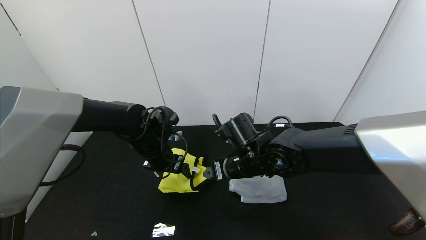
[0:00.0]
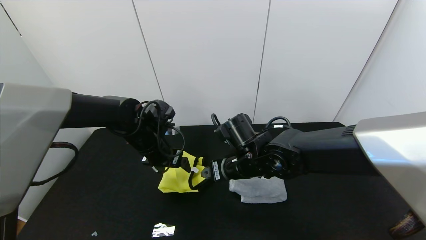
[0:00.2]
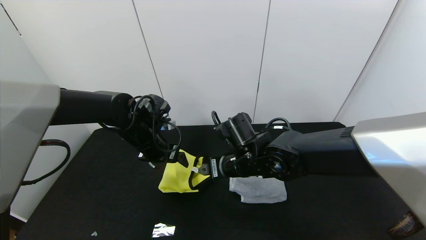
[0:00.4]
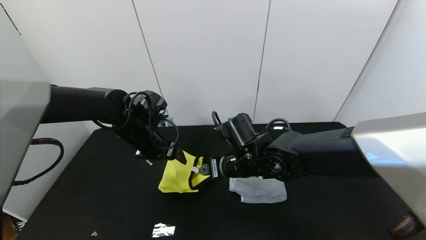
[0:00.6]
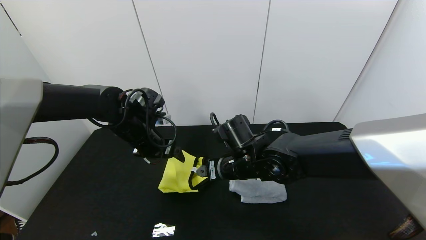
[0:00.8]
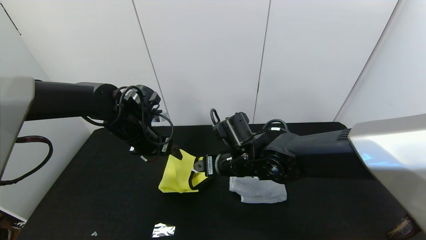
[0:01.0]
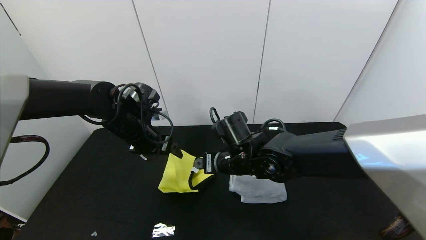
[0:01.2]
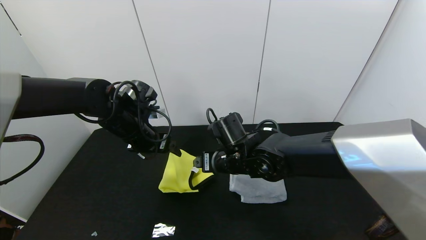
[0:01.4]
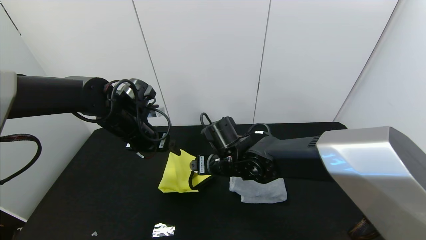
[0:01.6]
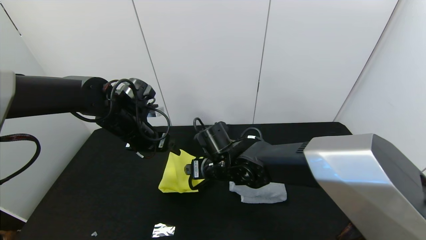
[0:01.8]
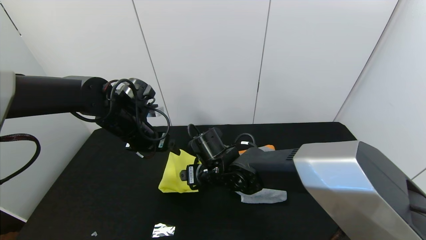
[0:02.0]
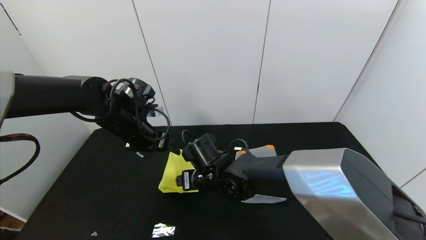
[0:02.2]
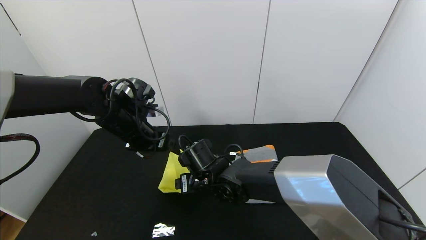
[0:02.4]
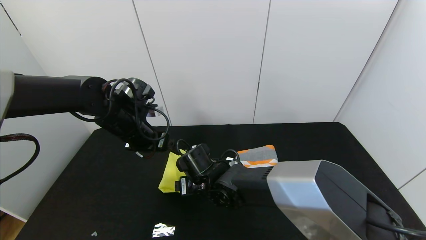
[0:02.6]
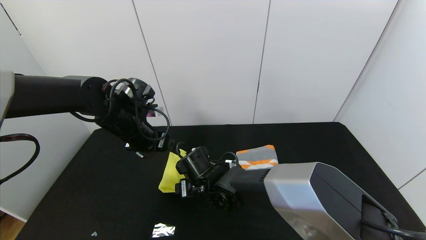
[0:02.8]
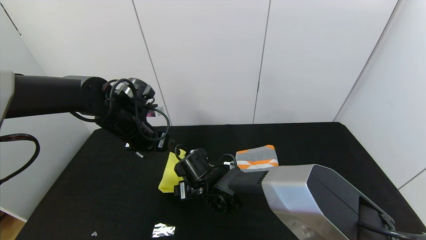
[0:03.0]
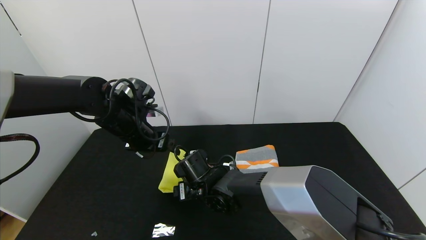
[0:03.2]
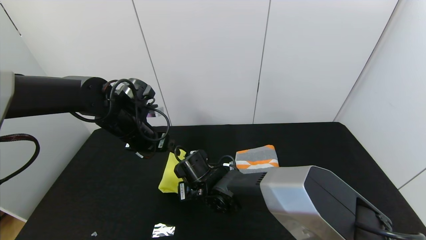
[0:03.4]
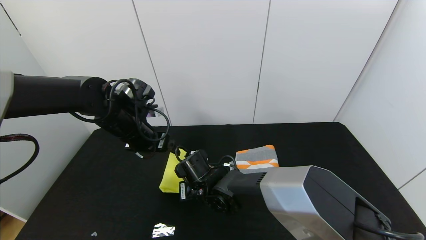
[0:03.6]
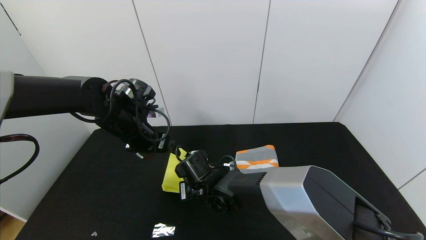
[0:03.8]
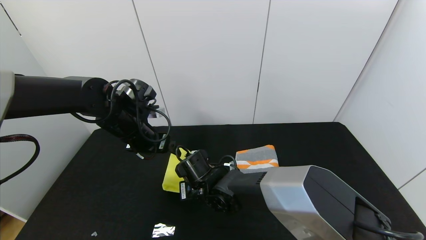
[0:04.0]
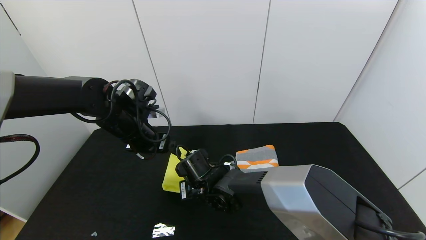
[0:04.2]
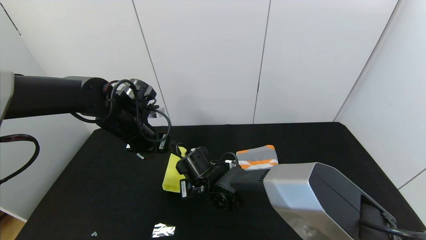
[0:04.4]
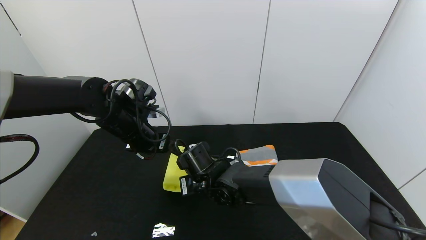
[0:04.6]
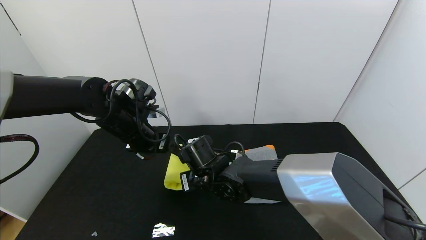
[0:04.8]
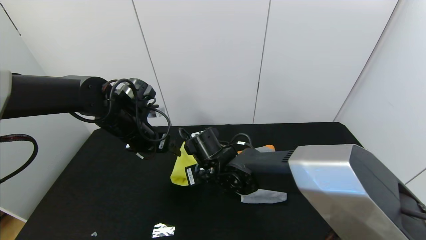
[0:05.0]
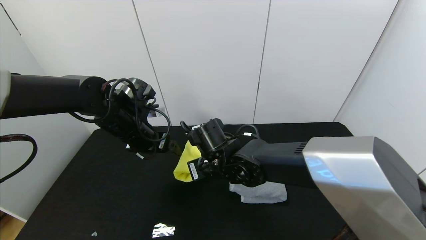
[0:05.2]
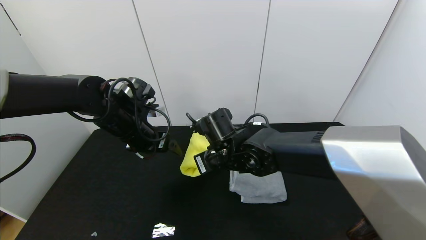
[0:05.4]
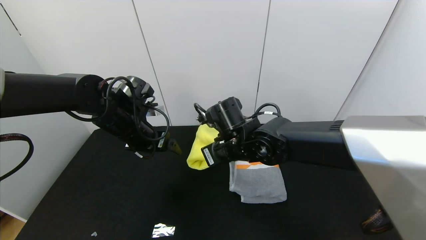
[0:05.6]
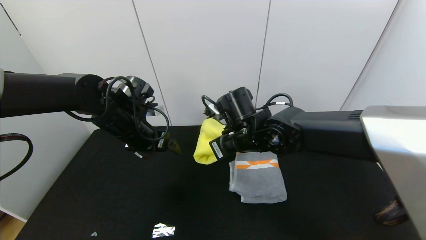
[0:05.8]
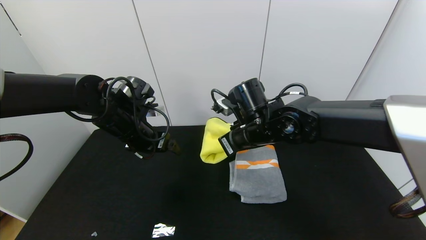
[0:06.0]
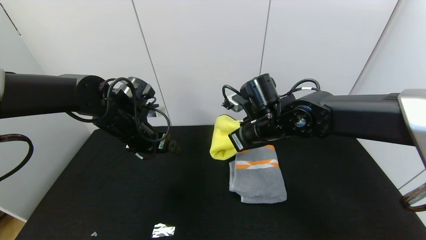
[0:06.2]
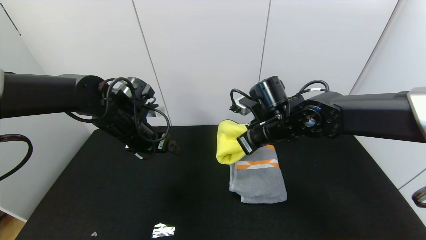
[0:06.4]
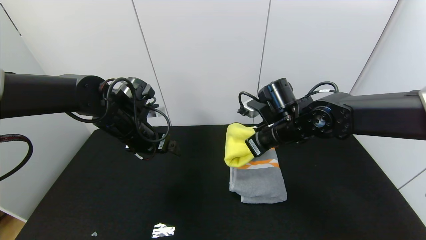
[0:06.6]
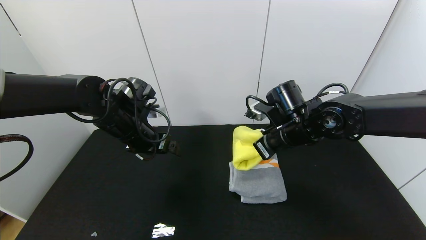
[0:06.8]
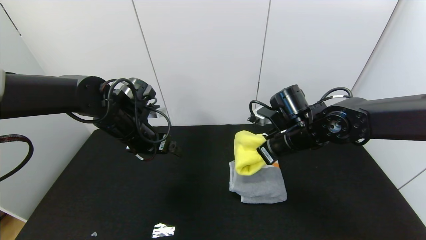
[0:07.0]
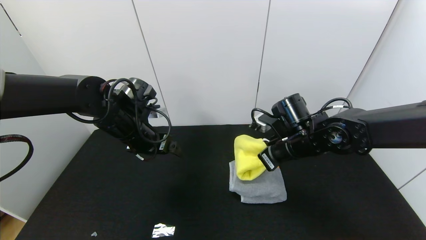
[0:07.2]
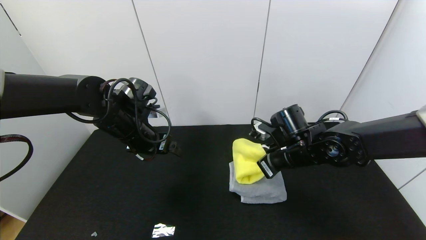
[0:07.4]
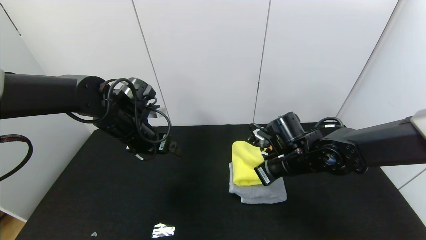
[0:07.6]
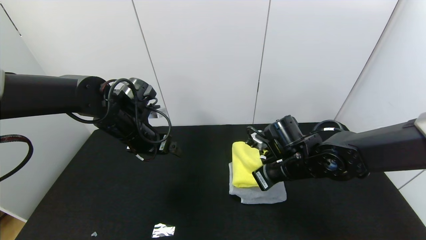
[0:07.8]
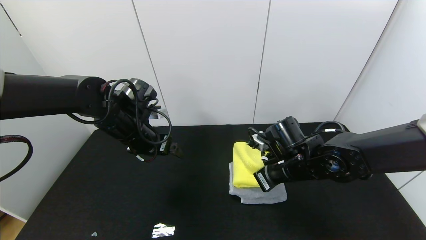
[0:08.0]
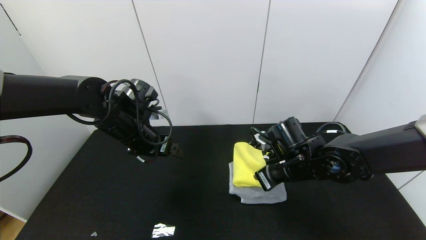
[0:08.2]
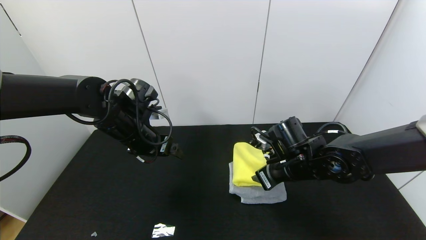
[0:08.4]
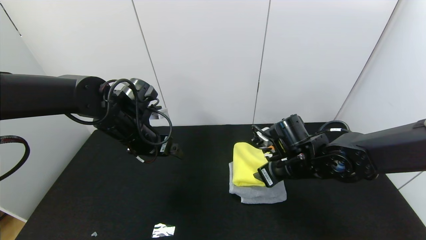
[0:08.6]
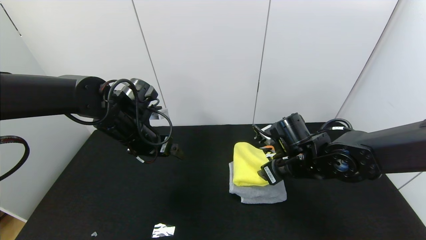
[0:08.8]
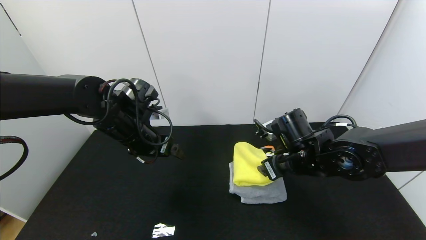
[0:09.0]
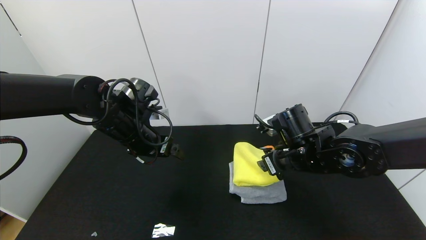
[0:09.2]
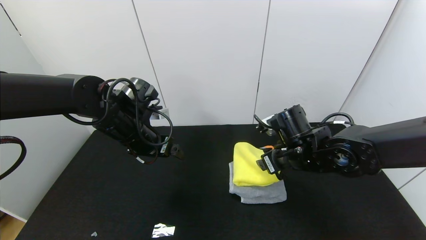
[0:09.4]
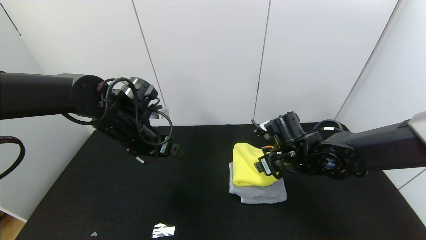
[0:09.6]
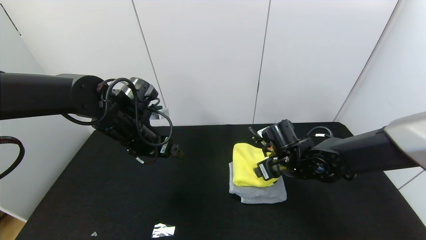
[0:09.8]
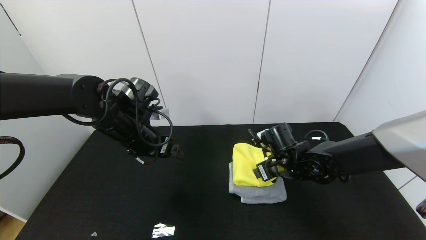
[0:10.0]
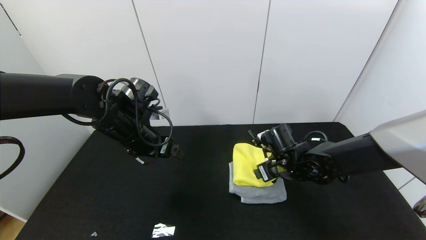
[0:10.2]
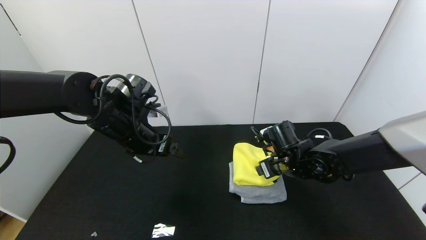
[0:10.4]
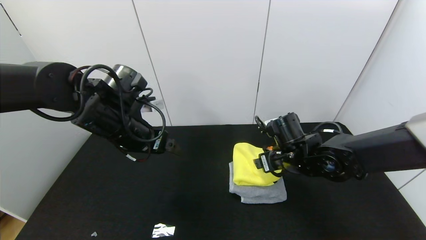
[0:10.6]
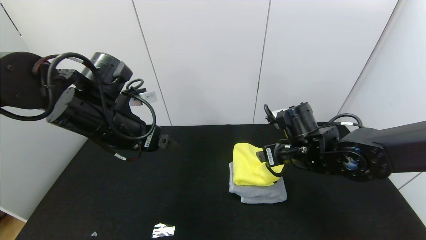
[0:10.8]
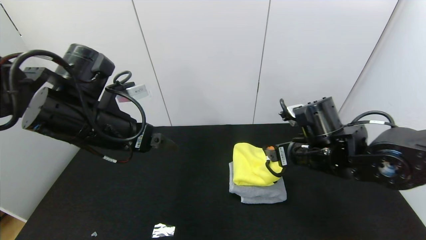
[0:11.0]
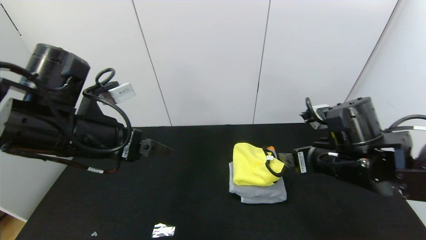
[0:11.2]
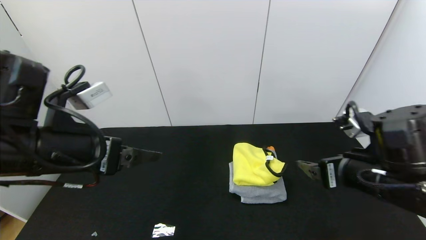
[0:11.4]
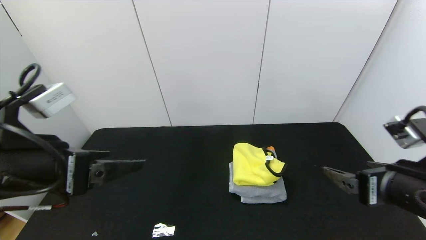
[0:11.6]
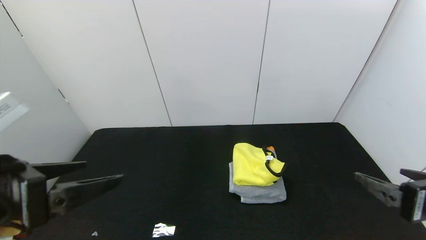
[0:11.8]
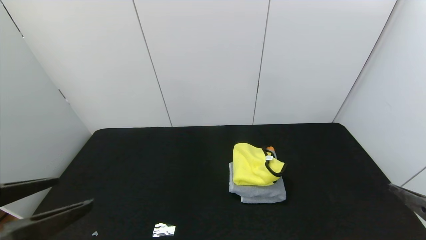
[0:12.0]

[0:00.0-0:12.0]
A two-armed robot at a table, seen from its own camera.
Task of the whole recording: Use the gripper to fold the yellow towel and grey towel in half twice,then put the yellow towel on the grey towel.
Step, 0:00.4 to 0:09.2: Place the yellow towel on the gray towel with the right gripper.
Step, 0:09.4 to 0:10.6: Press the yellow towel with the right gripper.
0:00.0 to 0:01.6: The left gripper shifts some 5 cm upward.
0:01.6 to 0:03.0: The right gripper goes some 10 cm downward and to the left.
0:03.0 to 0:04.4: The right gripper closes its fingers.
0:04.4 to 0:06.0: The right gripper is displaced upward and to the right by some 20 cm.
0:06.0 to 0:07.6: The right gripper moves to the right and downward, roughly 10 cm.
0:07.6 to 0:09.0: The right gripper opens its fingers.
0:09.0 to 0:10.4: The right gripper ends up about 5 cm from where it was.
0:10.4 to 0:12.0: The right gripper shifts some 30 cm backward, to the right and upward, while the left gripper is displaced backward by about 25 cm.
